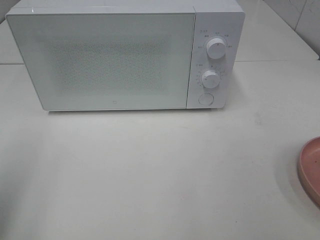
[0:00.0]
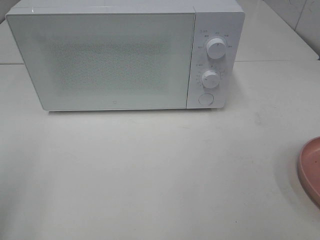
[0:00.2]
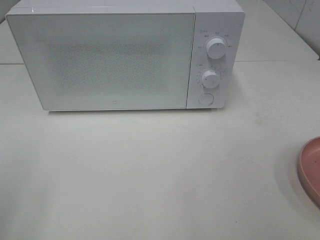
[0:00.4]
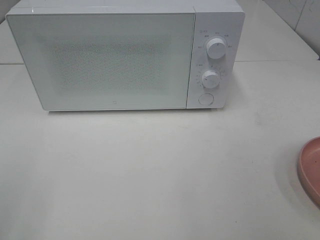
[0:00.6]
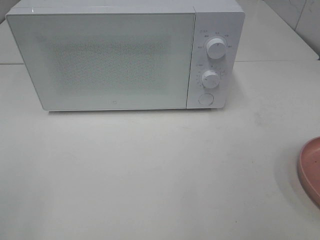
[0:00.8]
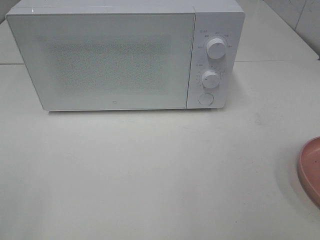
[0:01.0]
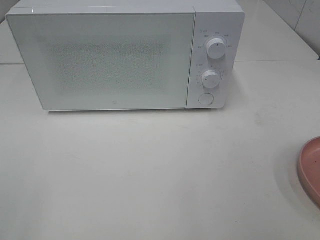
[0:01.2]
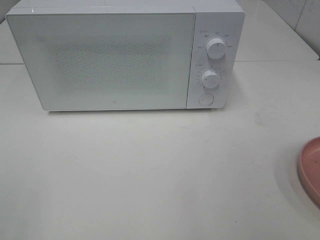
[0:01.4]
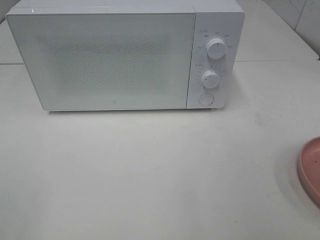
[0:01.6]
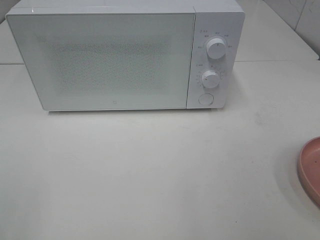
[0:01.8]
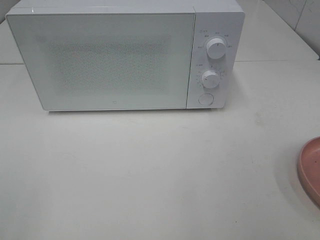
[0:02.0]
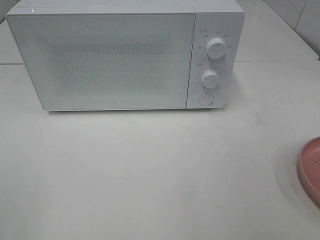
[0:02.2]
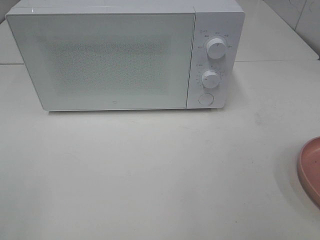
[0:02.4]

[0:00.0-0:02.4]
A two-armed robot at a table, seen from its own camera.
Task of the whole recording: Heat the burger.
0:01.2 to 0:02.4: Both grippers stay about where they are.

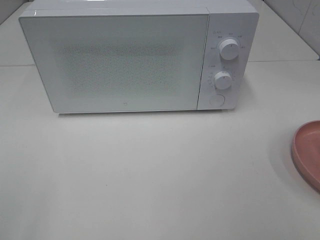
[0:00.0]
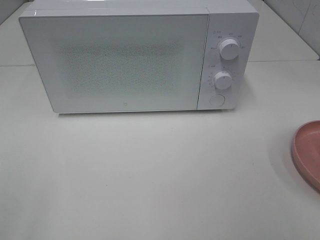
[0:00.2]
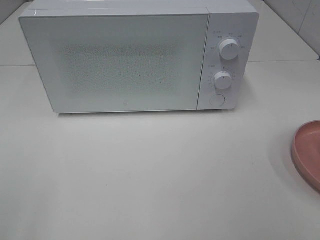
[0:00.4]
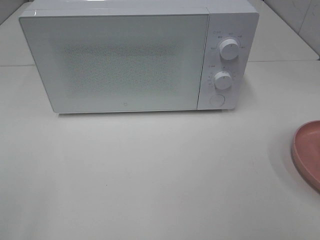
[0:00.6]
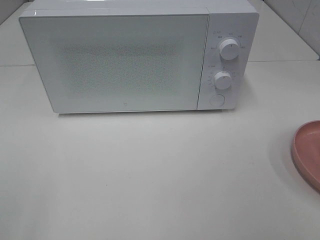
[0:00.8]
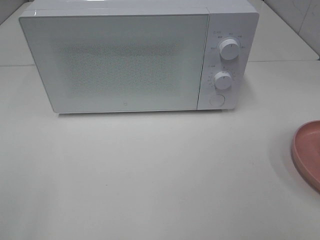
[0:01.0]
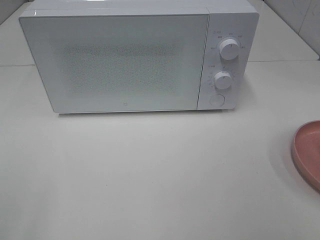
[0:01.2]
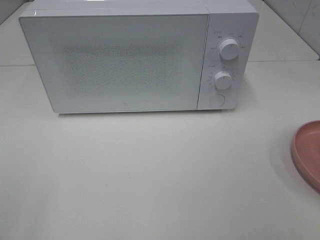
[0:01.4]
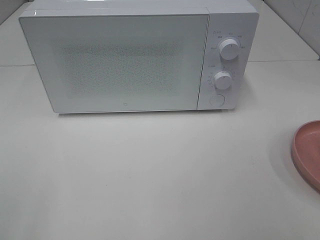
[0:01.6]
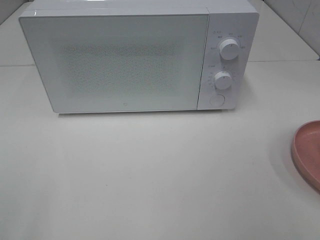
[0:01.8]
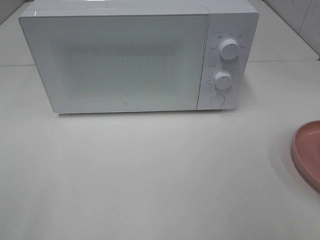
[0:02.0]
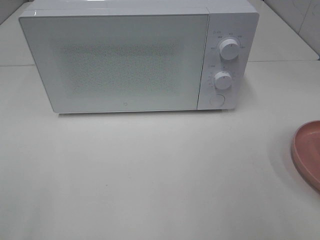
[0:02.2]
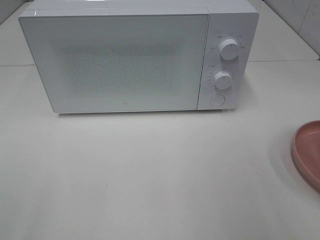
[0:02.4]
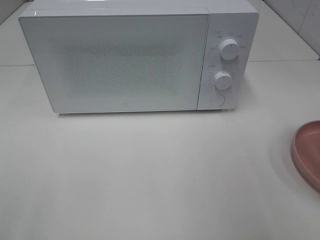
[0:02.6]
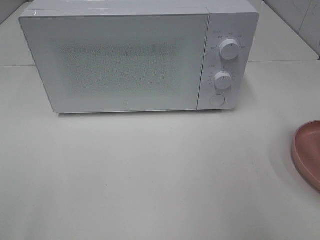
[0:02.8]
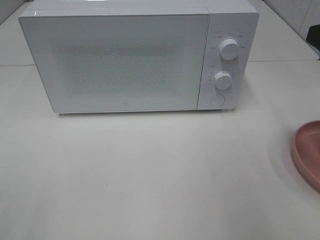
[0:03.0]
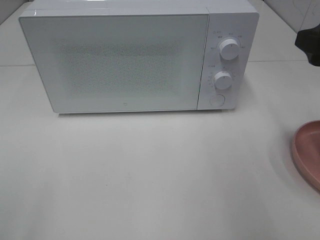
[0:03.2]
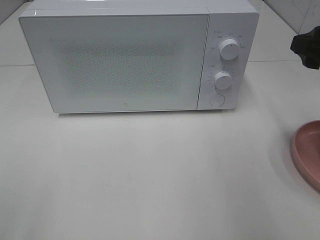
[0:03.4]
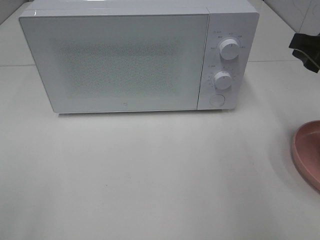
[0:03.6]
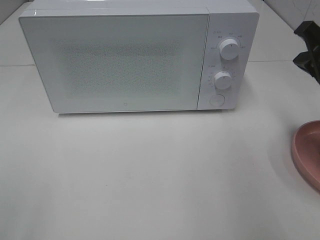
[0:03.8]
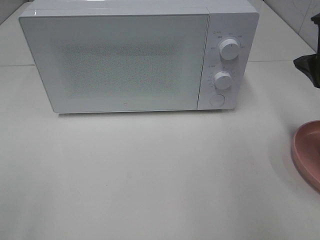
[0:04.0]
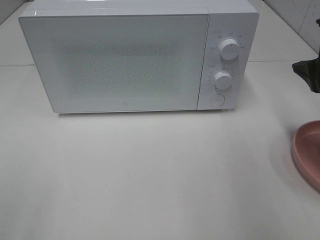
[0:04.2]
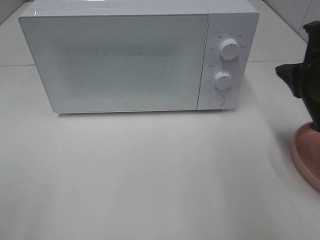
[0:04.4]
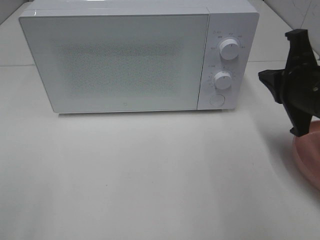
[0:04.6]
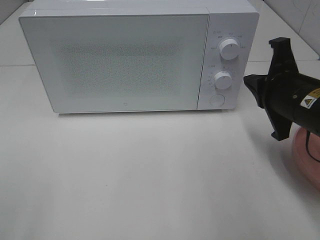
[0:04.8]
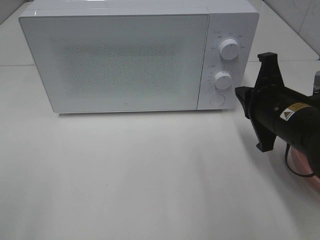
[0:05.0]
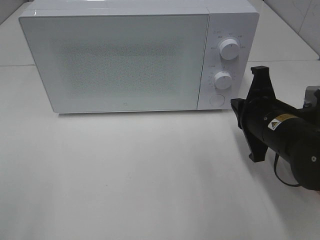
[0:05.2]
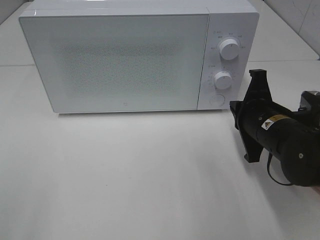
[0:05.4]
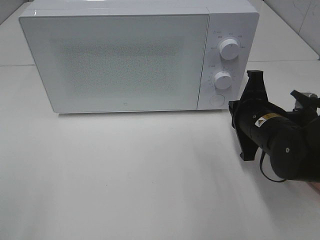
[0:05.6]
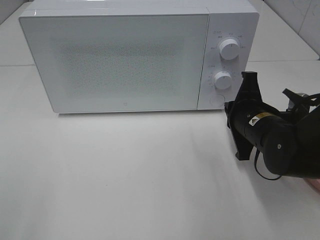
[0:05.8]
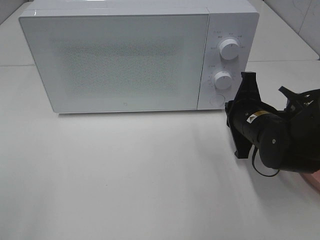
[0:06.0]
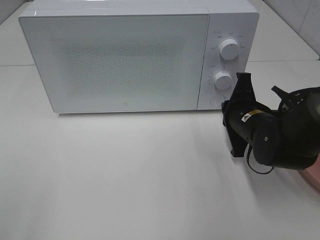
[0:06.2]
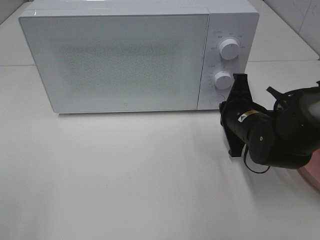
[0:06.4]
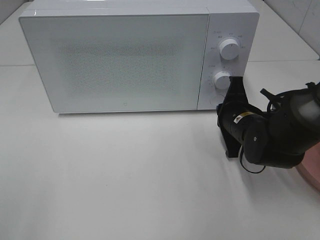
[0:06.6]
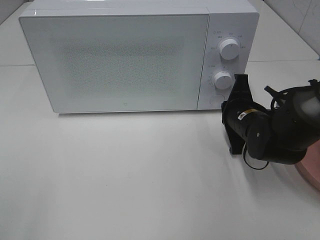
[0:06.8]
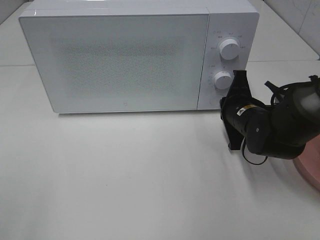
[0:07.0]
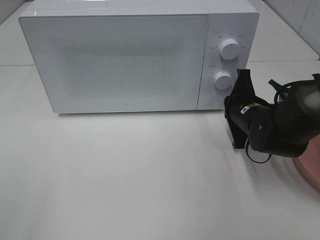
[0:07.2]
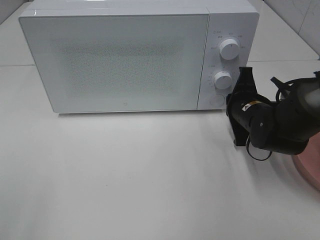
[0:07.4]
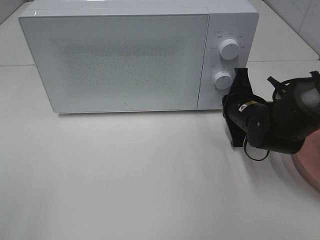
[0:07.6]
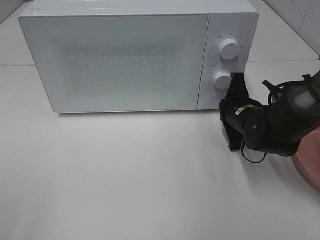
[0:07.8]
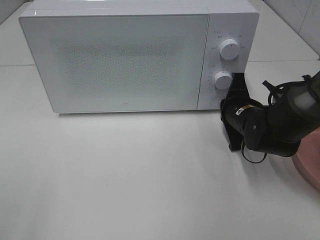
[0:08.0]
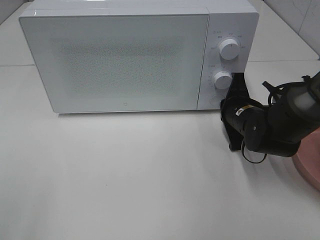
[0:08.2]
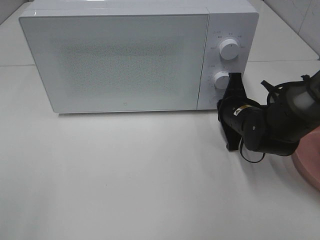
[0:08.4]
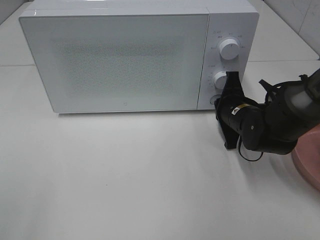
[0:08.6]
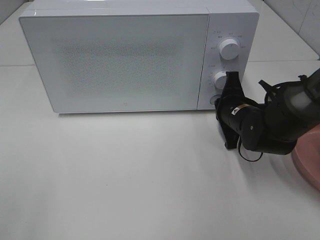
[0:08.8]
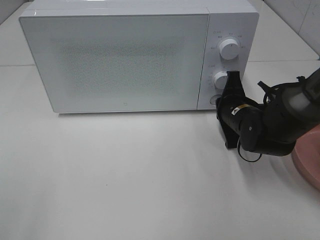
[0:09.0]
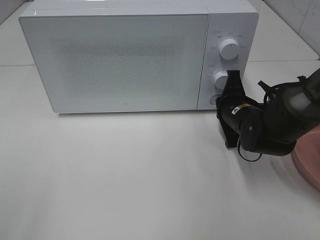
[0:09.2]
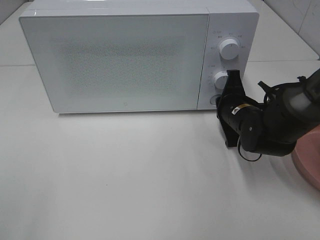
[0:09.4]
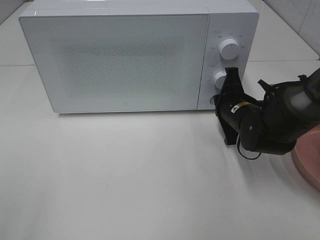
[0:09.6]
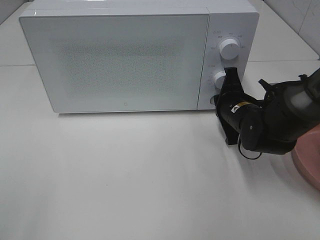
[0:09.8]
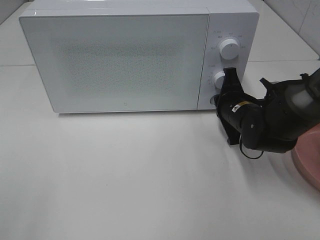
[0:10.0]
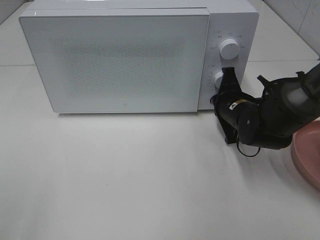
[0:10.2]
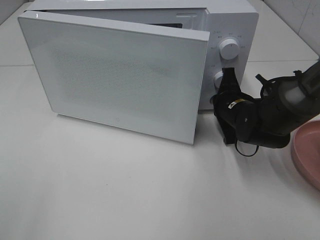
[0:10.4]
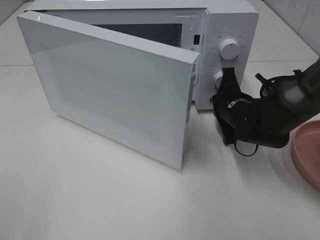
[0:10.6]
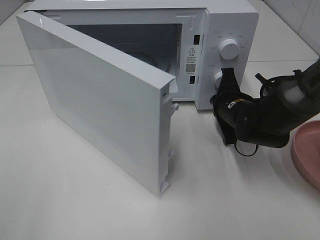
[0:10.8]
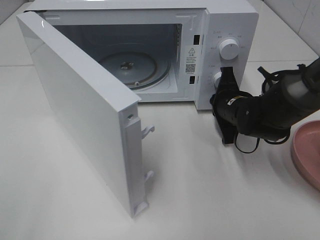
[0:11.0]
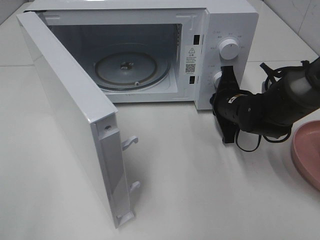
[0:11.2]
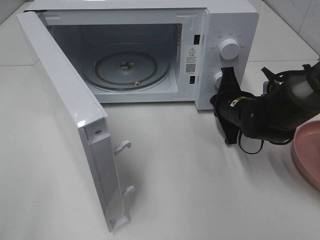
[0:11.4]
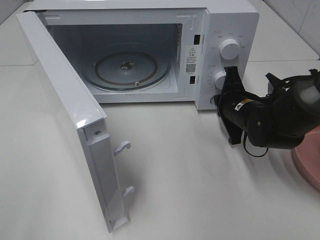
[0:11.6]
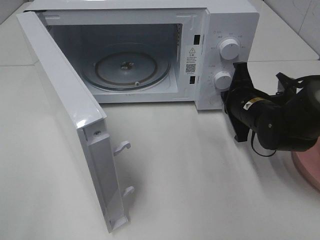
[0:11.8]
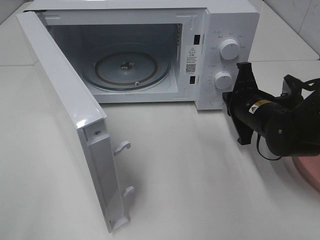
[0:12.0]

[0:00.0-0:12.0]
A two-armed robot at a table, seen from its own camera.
Task of the whole recording: Heat the burger.
Step, 0:00.0 to 0:11.6: Right hand: press the switch.
0:00.0 to 0:01.6: The two grippers keep their place.
0:03.0 to 0:04.4: The right gripper heads downward, covering approximately 10 cm, and closes its fingers.
0:04.4 to 0:06.0: The right gripper is displaced downward and to the left by about 15 cm.
0:06.0 to 0:07.6: The right gripper shifts by approximately 5 cm.
0:07.6 to 0:09.0: Both grippers stay put.
0:09.0 to 0:10.4: Both grippers stay about where they are.

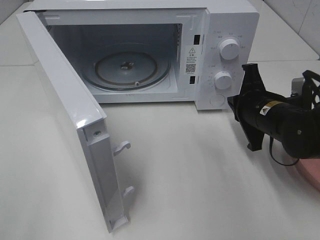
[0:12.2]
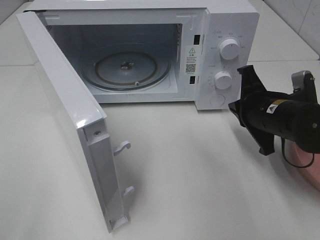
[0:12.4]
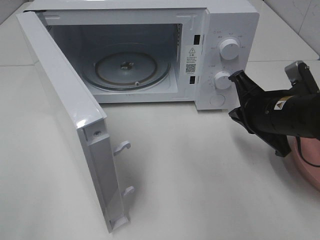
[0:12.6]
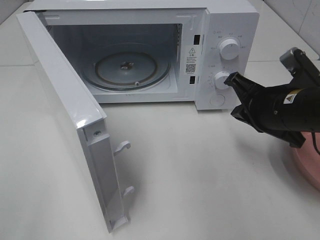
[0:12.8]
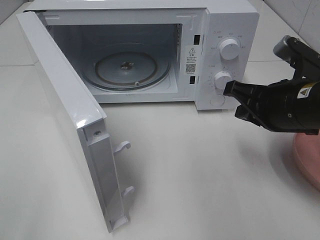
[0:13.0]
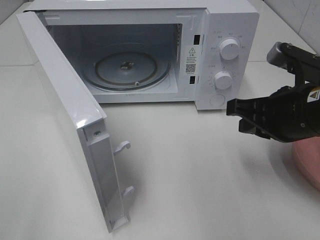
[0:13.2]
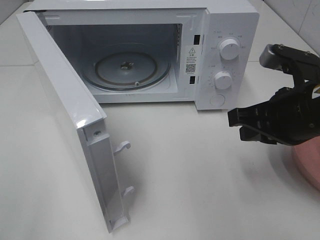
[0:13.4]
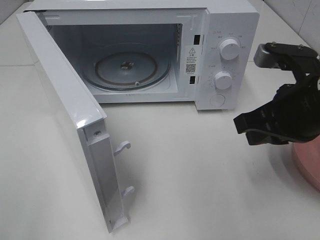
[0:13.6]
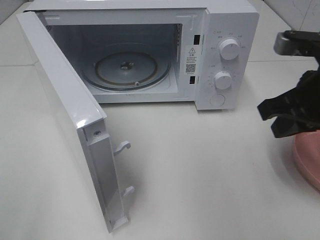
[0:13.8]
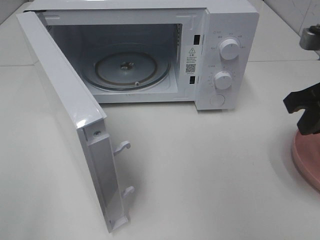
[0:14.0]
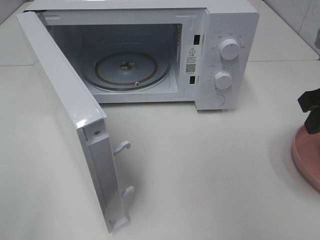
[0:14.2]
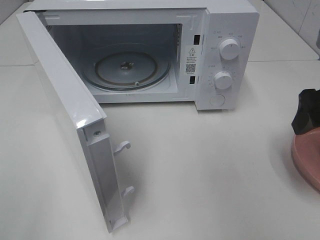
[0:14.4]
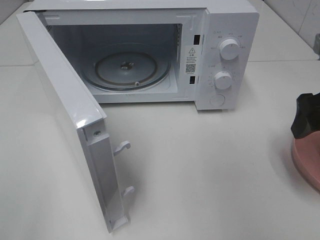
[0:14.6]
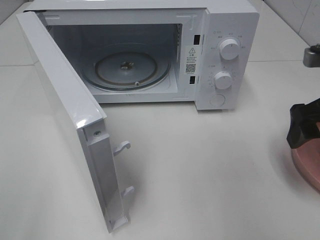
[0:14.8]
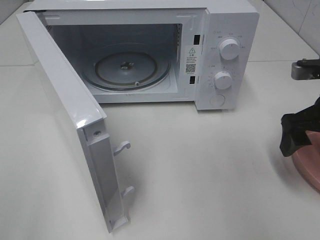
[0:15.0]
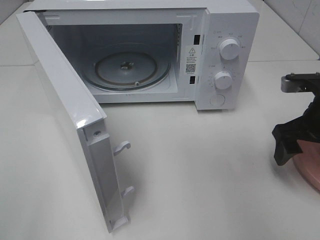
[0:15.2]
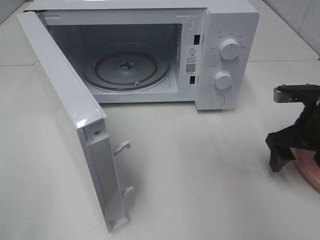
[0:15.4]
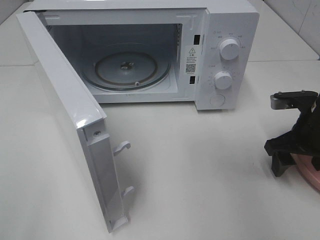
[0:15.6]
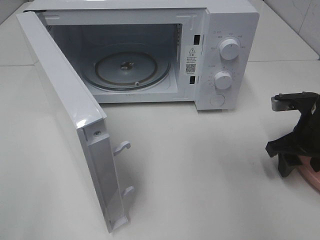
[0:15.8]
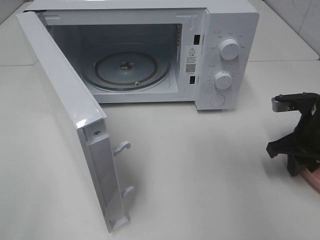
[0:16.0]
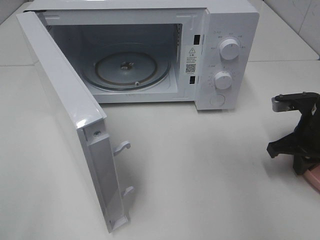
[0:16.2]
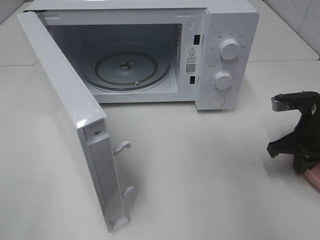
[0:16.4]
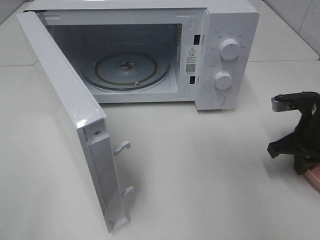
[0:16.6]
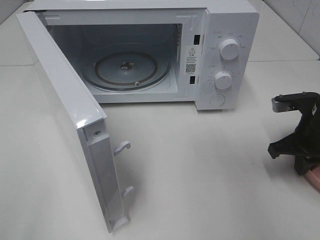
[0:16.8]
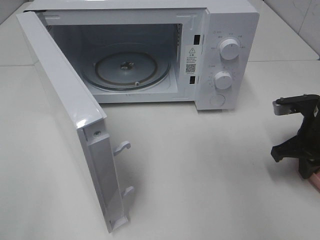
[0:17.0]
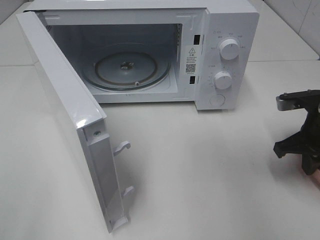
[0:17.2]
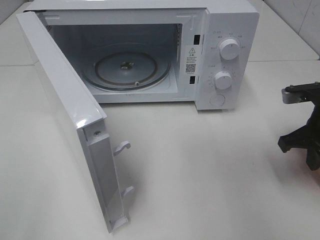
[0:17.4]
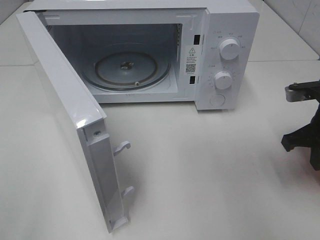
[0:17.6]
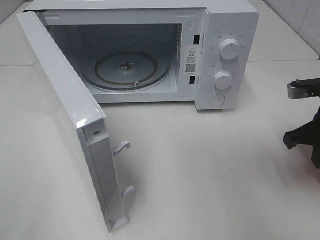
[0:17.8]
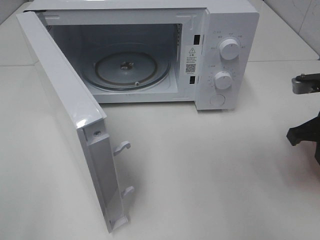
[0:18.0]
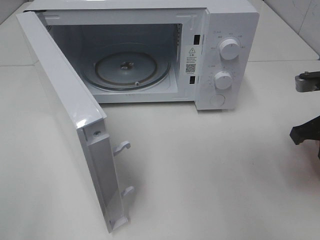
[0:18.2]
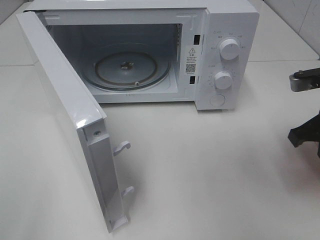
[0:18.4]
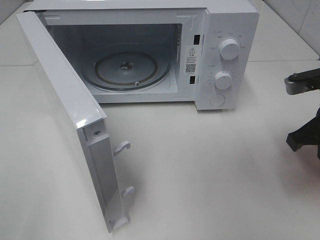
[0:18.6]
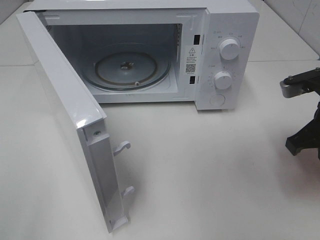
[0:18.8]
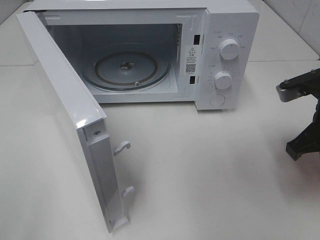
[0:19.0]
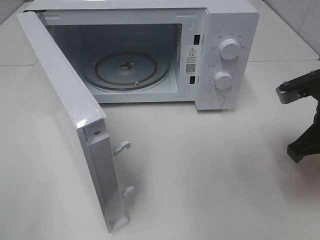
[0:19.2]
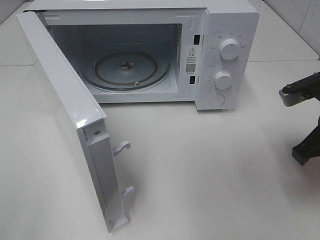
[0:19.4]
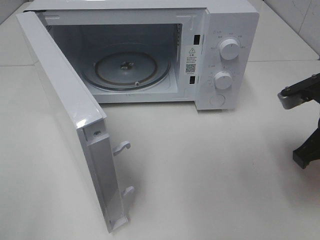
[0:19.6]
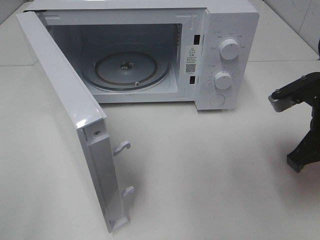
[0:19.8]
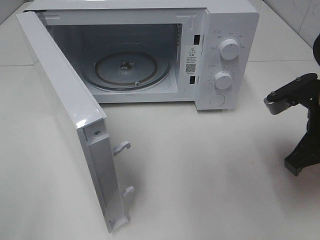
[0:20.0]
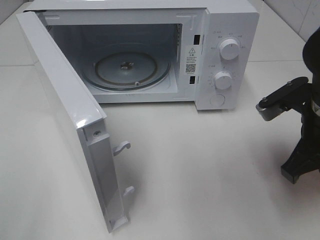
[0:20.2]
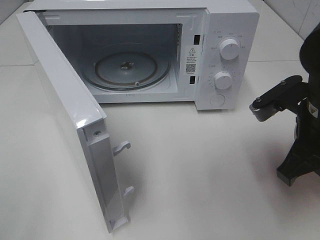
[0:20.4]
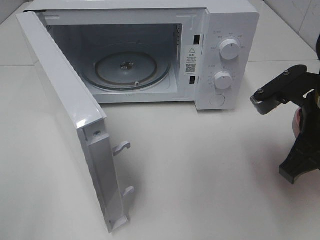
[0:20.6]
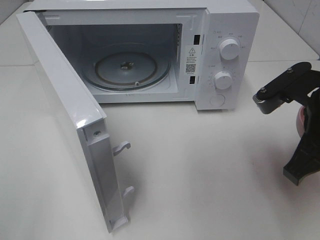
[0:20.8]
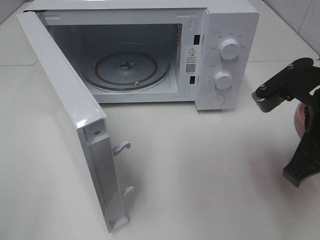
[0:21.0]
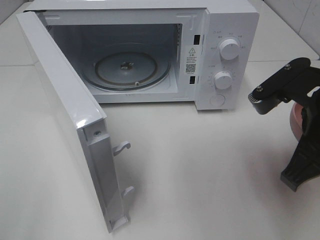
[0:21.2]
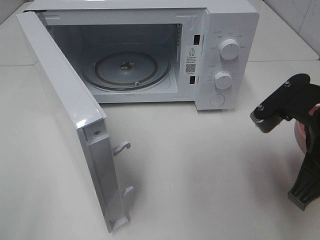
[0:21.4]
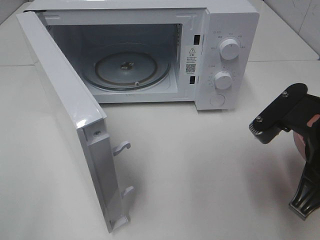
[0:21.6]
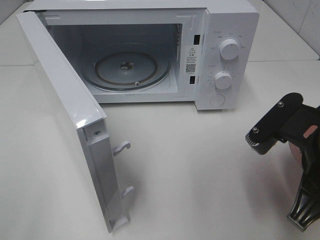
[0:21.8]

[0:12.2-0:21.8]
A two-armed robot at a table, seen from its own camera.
Task of the whole recording: Heat the burger.
Step, 0:12.2 to 0:16.2: Right hand: grab the plate with the hamburger.
0:12.2 to 0:13.8: The right gripper is displaced upward and backward by some 15 cm.
0:13.8 to 0:15.4: The right gripper goes some 15 cm downward, forward and to the right, and opens.
0:15.4 to 0:17.0: The right gripper closes up.
0:17.0 to 0:18.6: The right gripper heads upward, covering about 5 cm.
0:18.6 to 0:20.2: The right gripper heads to the left, covering approximately 5 cm.
0:20.2 to 0:21.8: The right gripper goes roughly 5 cm backward.
